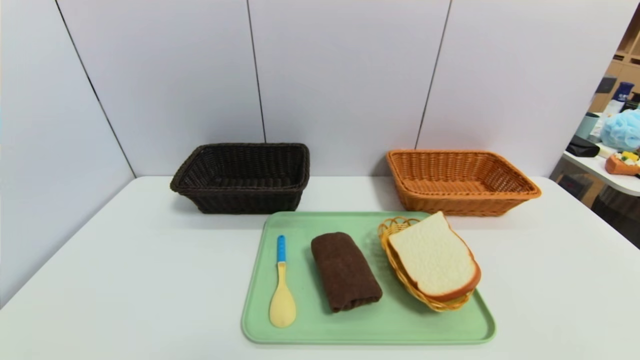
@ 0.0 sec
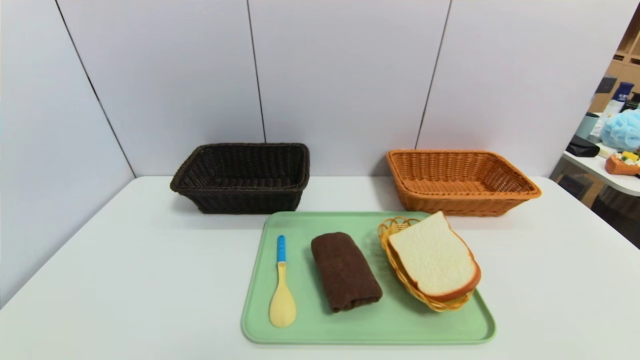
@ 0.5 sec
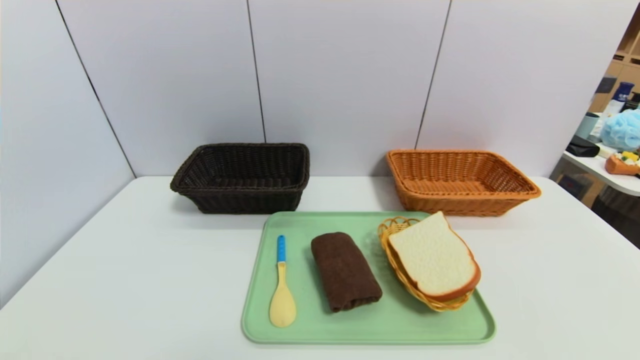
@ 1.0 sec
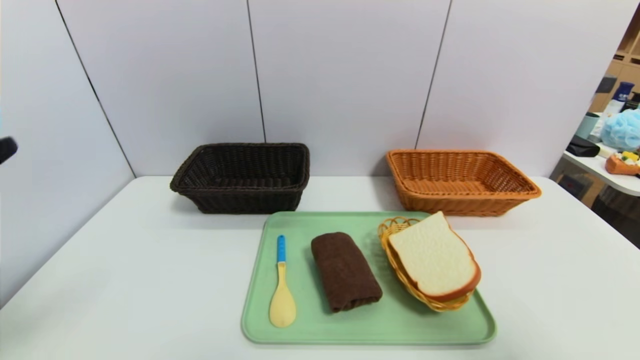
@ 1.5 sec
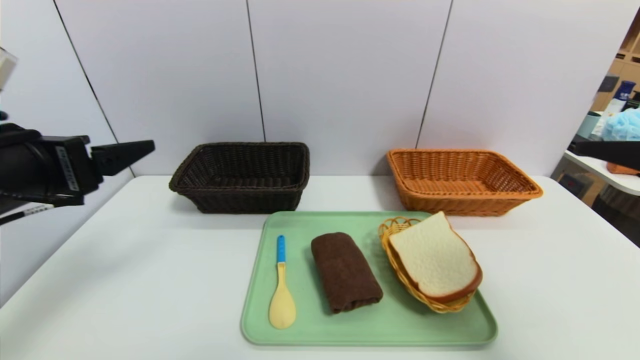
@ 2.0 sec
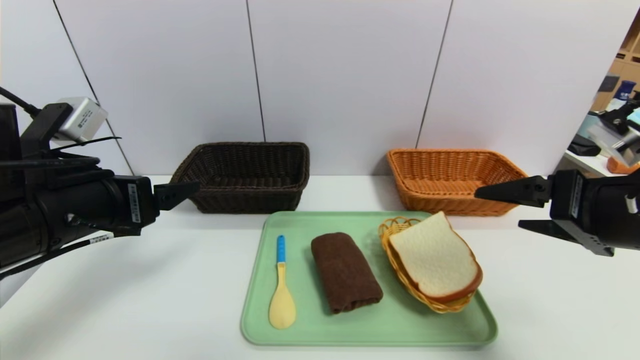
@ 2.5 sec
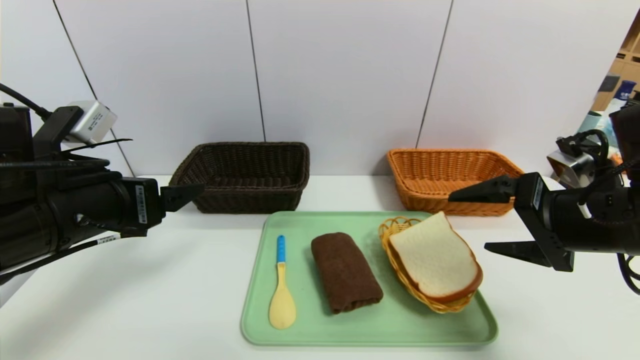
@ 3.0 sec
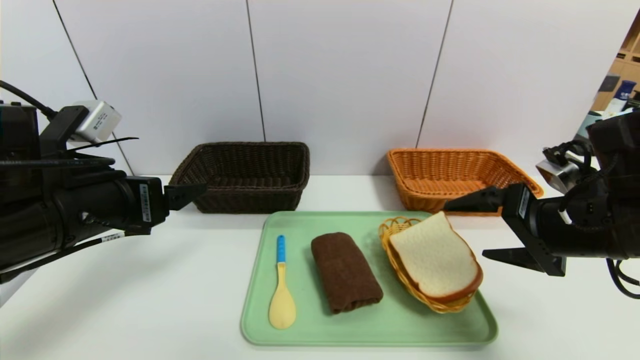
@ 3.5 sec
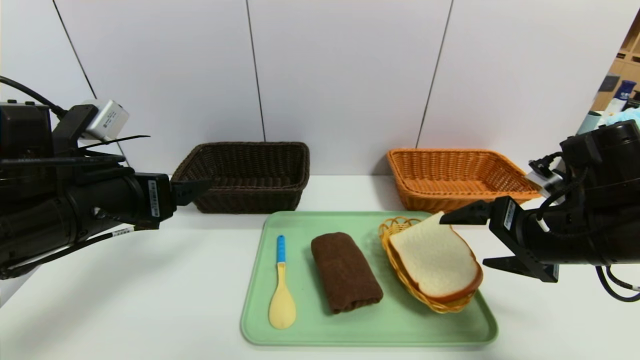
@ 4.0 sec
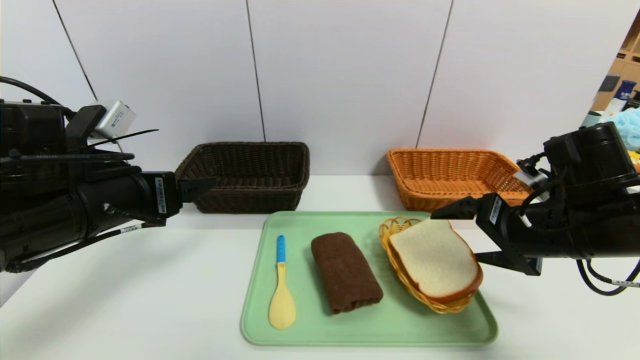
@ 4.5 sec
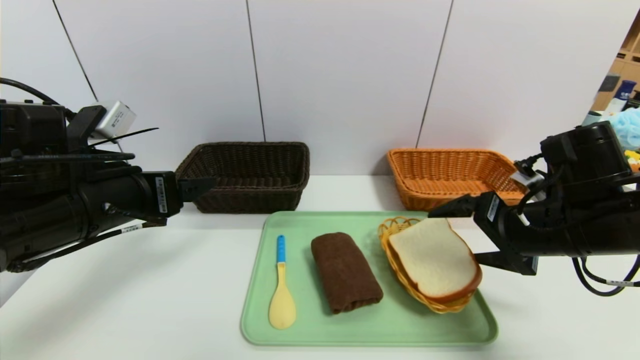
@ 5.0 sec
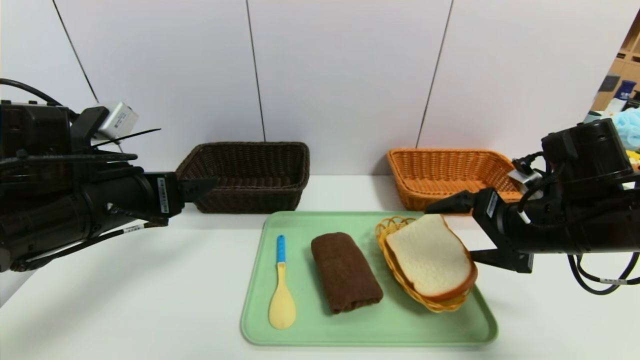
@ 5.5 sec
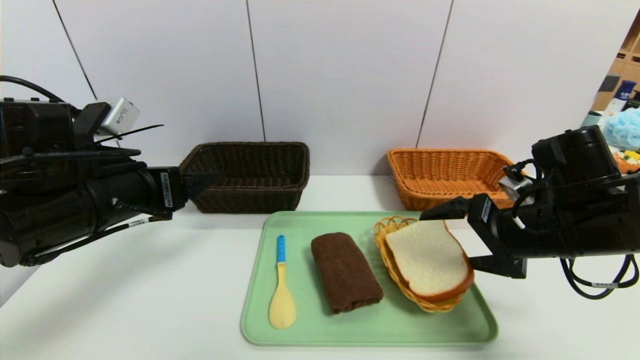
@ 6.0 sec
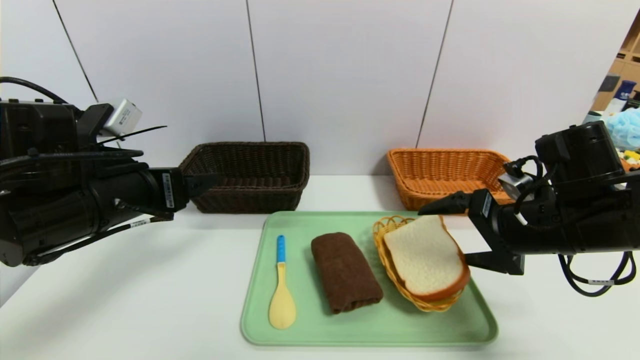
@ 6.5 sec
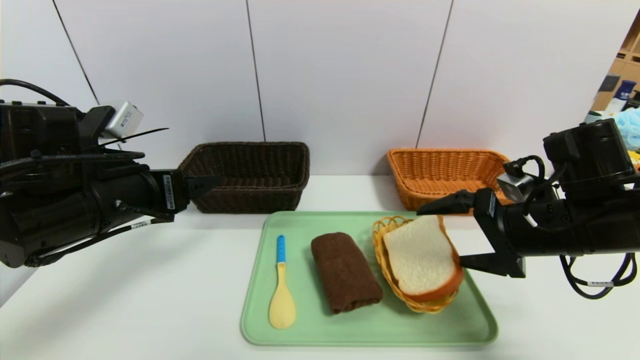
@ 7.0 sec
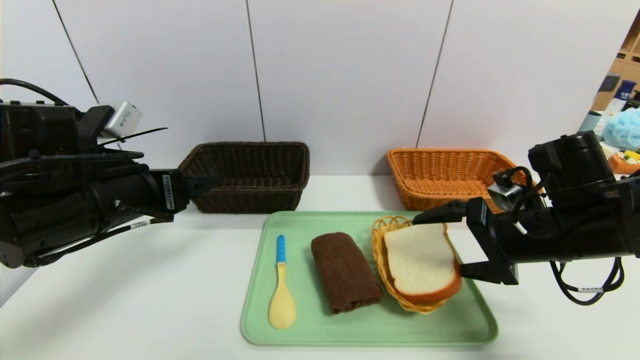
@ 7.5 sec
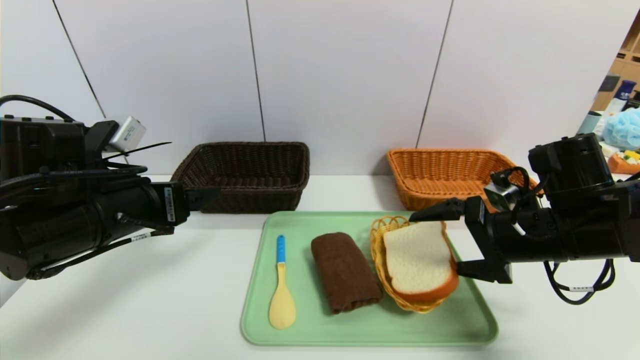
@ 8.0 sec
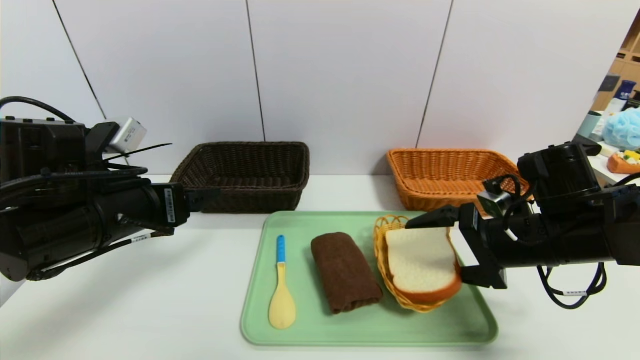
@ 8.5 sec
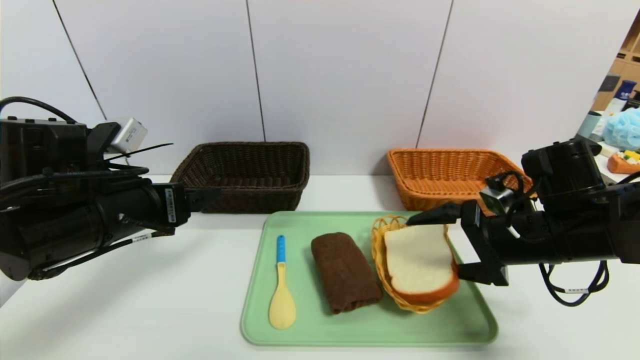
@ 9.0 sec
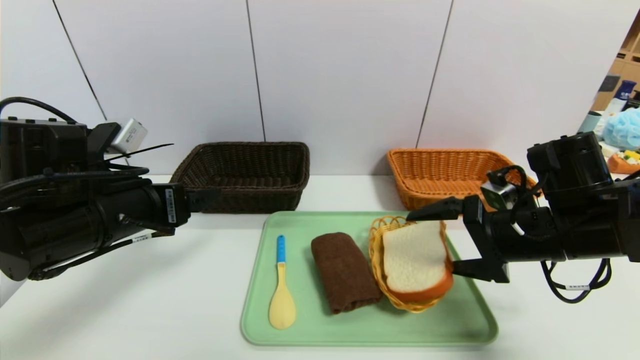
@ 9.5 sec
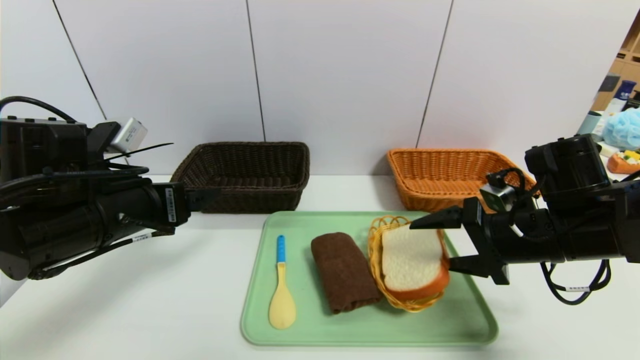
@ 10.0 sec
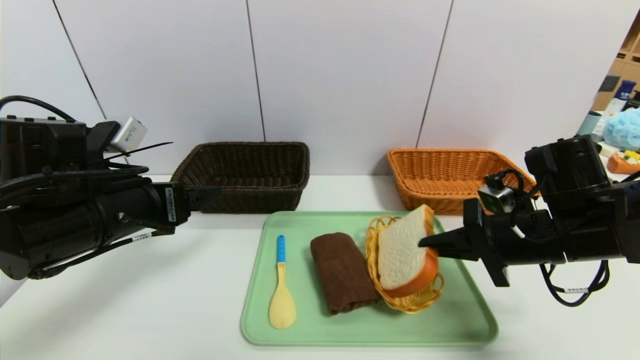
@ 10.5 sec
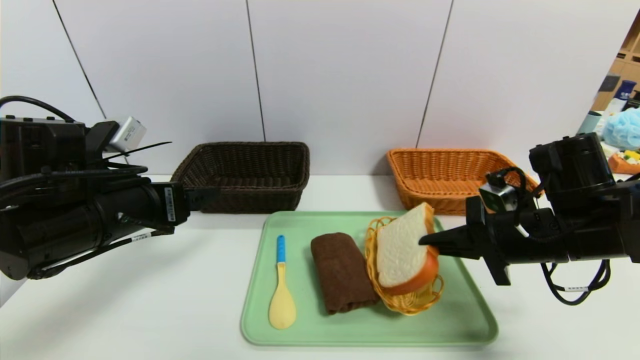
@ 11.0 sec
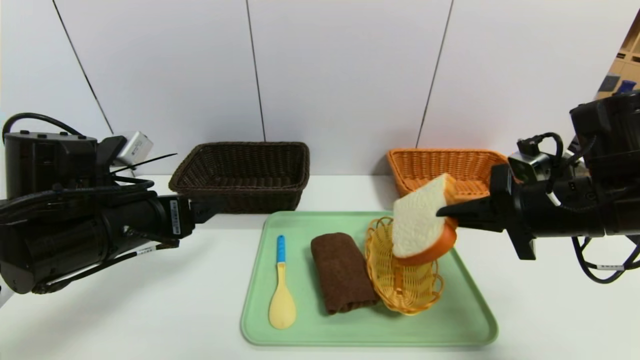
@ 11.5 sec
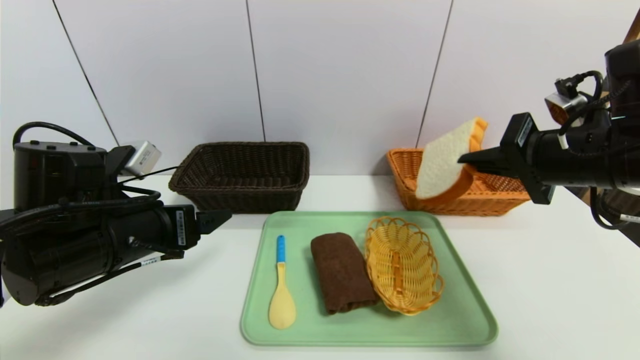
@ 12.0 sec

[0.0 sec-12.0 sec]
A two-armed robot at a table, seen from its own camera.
Task of the whole recording: place the food in the right basket with the right gripper, and place the non food items in the left basket with the left gripper.
0.0 sec to 2.0 sec: The two grippers go roughly 30 cm upward and forward.
2.0 sec to 4.0 sec: The left gripper shifts by about 5 cm; the right gripper is displaced downward, forward and to the left by roughly 15 cm.
4.0 sec to 6.0 sec: There are only small adjustments of the grippers.
6.0 sec to 8.0 sec: The grippers make only small movements.
8.0 sec to 10.0 sec: The two grippers keep their place.
10.0 sec to 12.0 sec: The right gripper travels upward by some 10 cm, and closes.

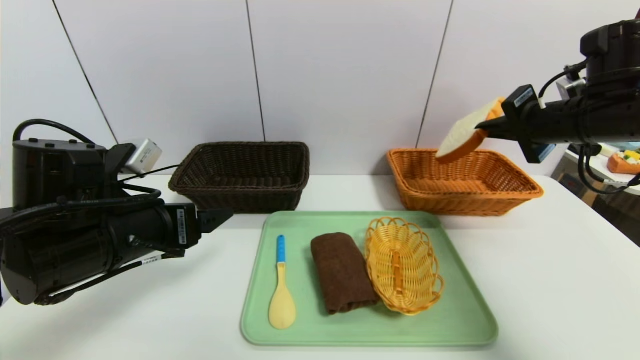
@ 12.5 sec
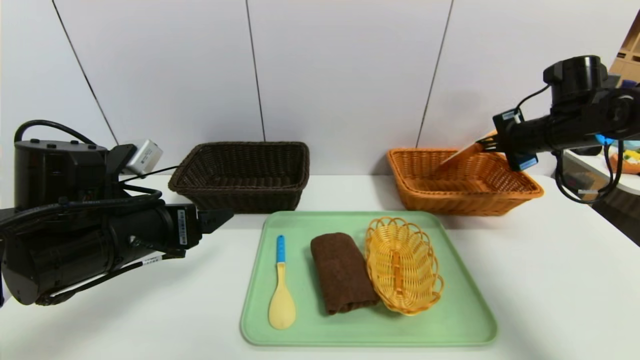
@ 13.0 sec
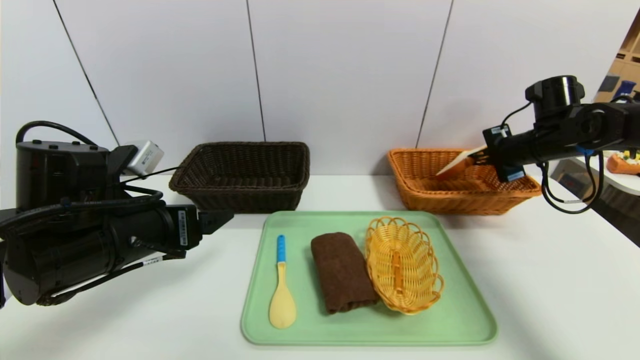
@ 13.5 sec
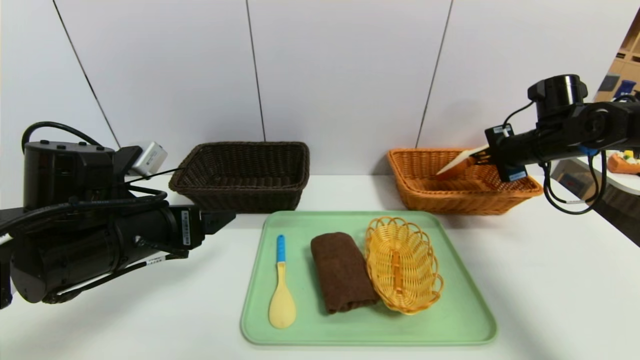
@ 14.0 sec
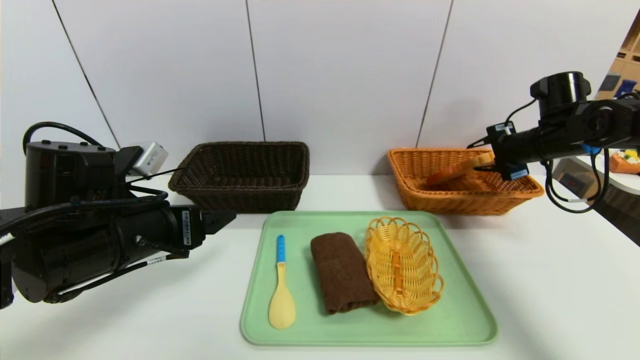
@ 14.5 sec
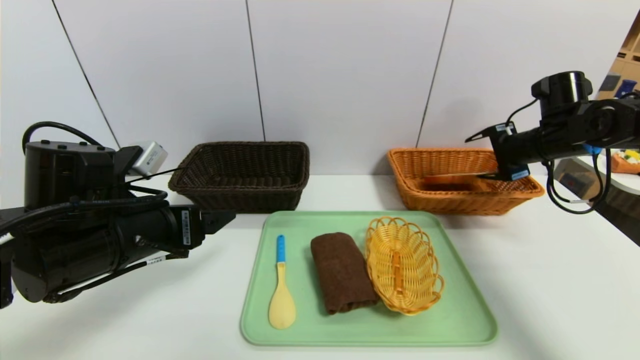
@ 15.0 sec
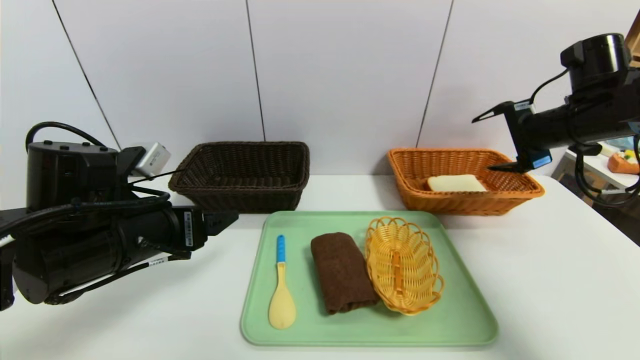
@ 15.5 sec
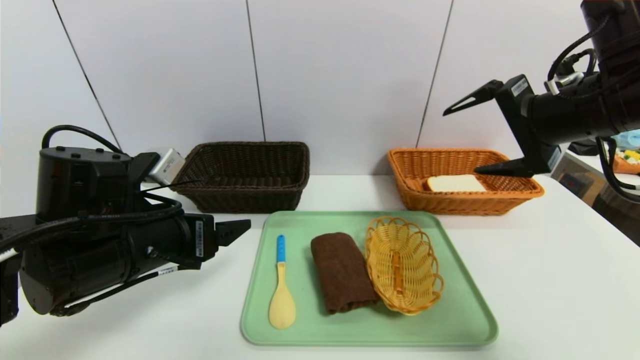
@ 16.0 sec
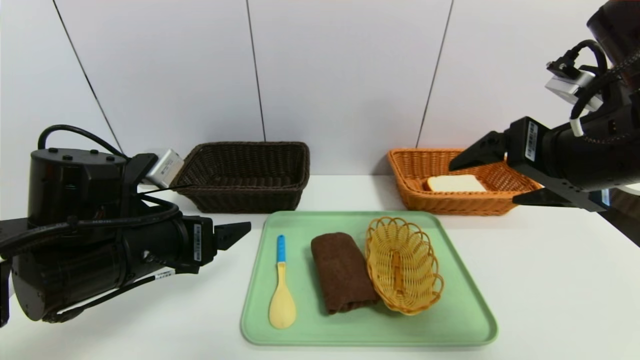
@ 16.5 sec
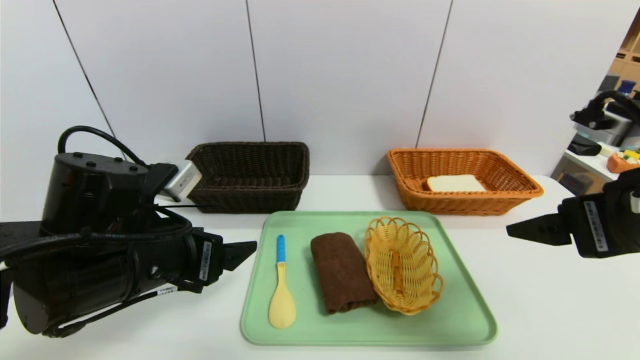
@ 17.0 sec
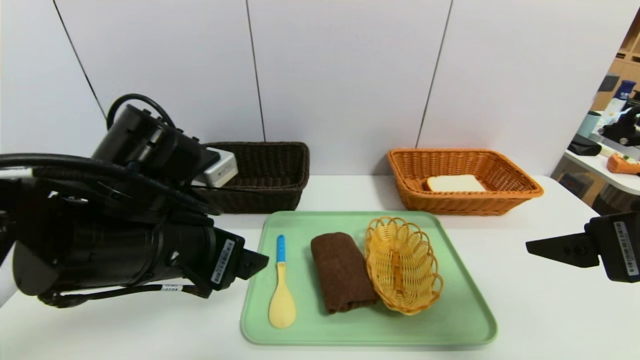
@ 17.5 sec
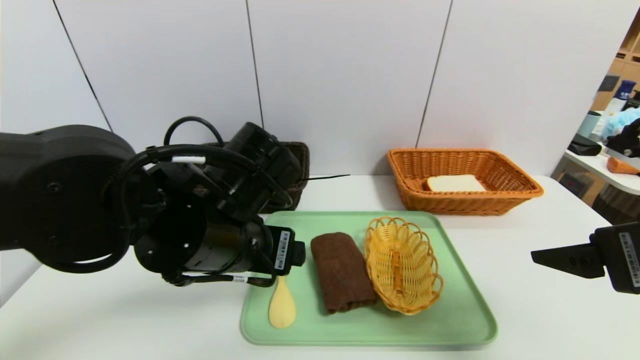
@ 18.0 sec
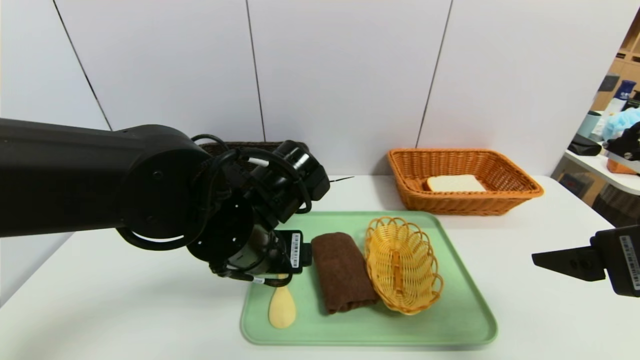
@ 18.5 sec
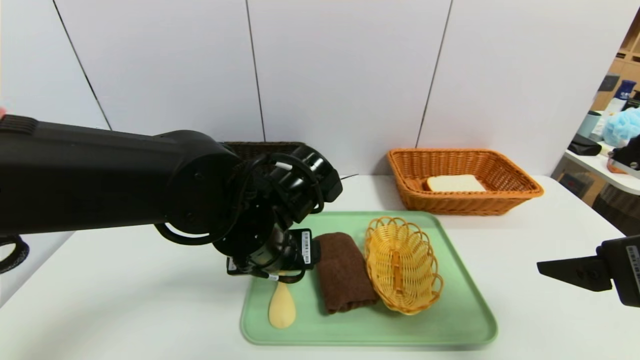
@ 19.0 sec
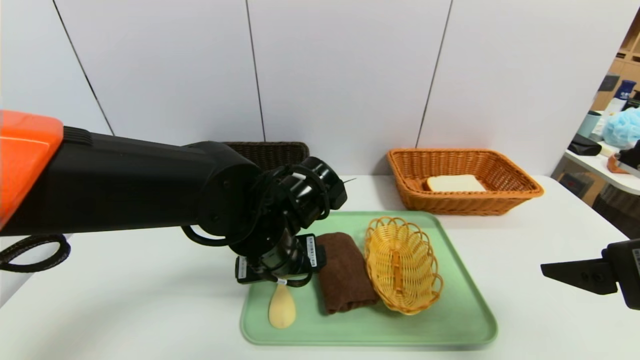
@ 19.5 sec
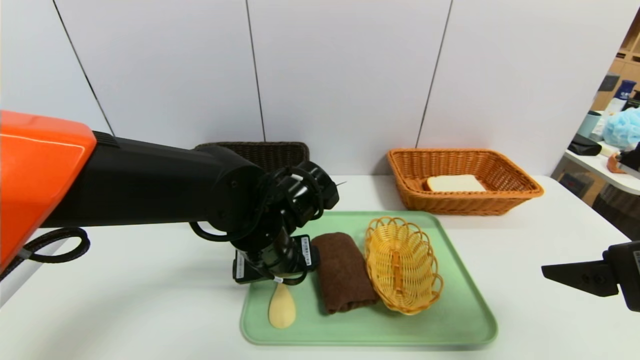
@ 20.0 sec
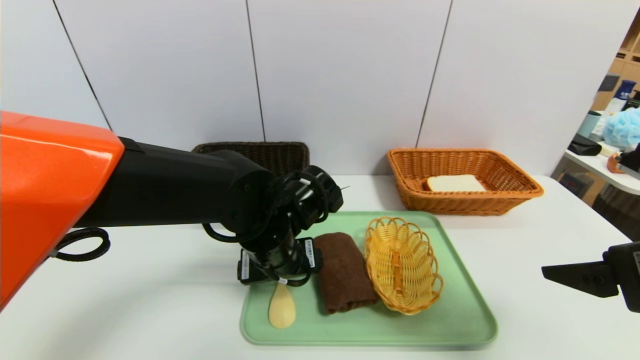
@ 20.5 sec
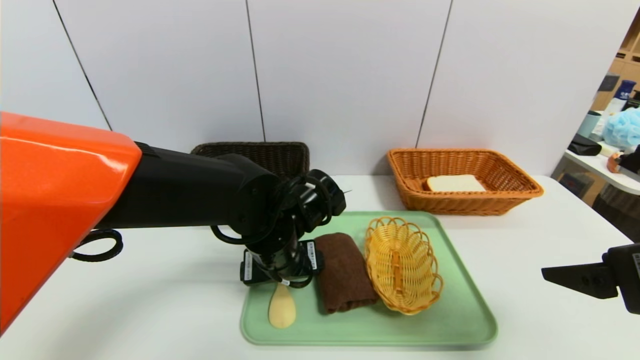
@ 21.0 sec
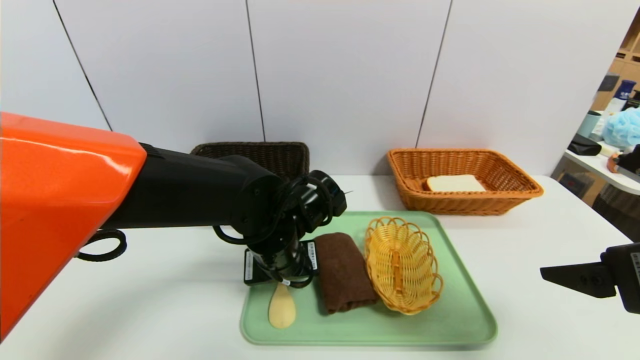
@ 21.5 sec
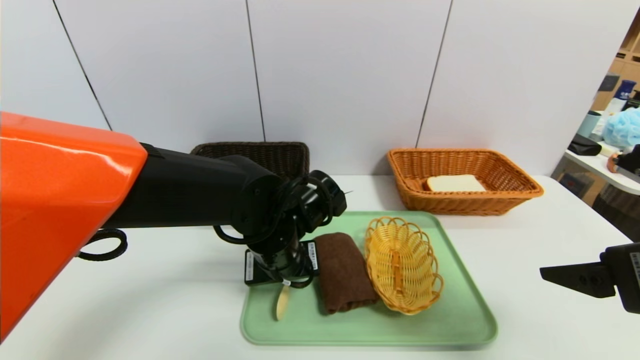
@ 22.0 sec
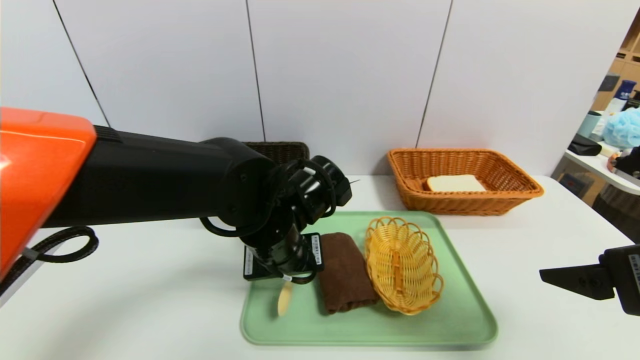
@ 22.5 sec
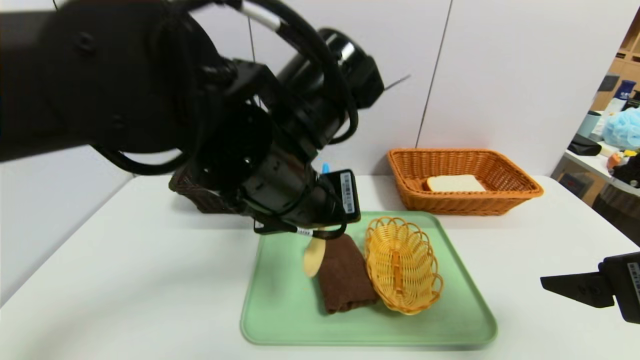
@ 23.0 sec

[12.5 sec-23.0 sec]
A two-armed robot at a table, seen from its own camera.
Task of the whole recording: place the food in the right basket with the right gripper, and place the non food items in the left basket with the left gripper.
Step, 12.5 sec to 15.5 sec: Grasp the bread slice and put it in the right basket.
12.5 sec to 14.5 sec: The right gripper moves forward and downward, approximately 10 cm, and opens its fingers.
14.5 sec to 16.5 sec: The right gripper moves backward, to the left and upward, some 25 cm, and opens.
16.5 sec to 19.0 sec: The right gripper travels backward by about 5 cm; the left gripper goes about 15 cm to the right.
19.0 sec to 21.0 sec: The left gripper changes place by about 5 cm.
21.0 sec to 23.0 sec: The left gripper goes about 15 cm upward and backward, and closes its fingers.
